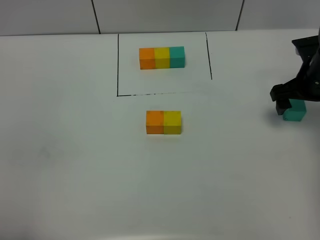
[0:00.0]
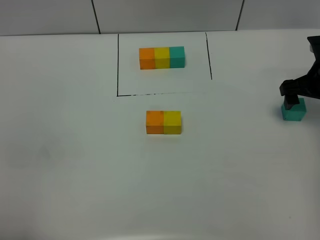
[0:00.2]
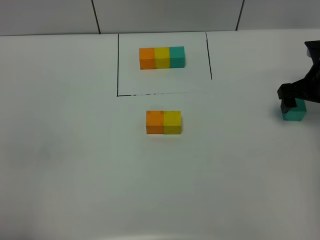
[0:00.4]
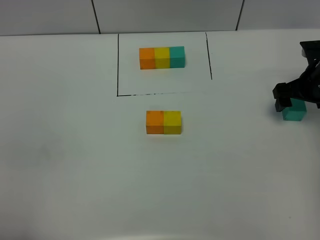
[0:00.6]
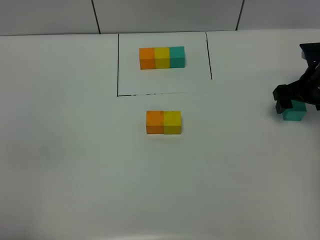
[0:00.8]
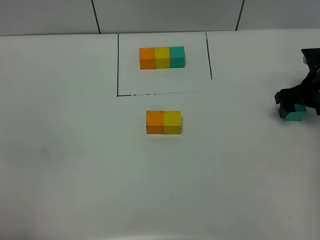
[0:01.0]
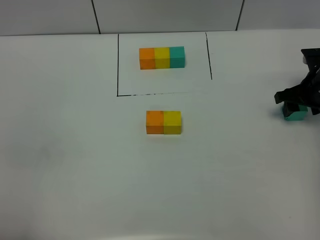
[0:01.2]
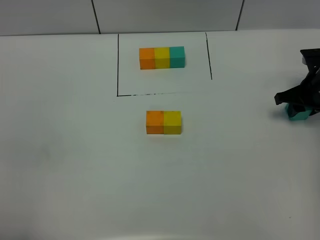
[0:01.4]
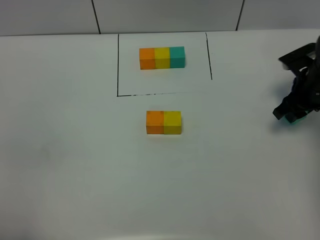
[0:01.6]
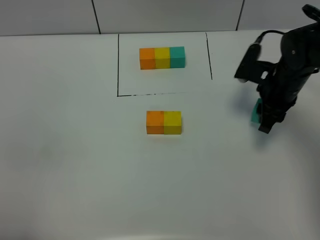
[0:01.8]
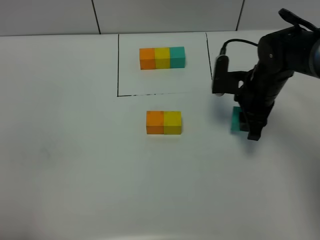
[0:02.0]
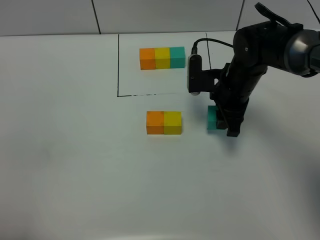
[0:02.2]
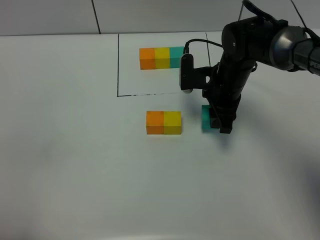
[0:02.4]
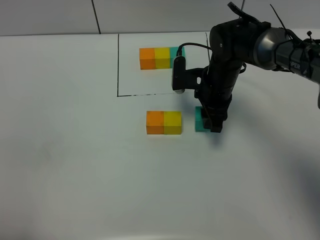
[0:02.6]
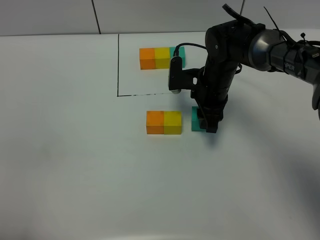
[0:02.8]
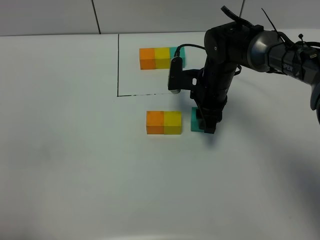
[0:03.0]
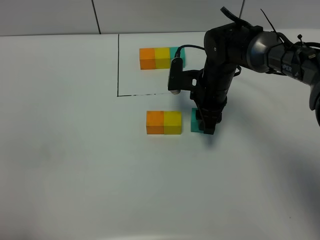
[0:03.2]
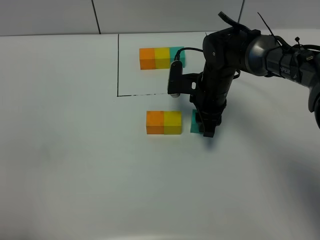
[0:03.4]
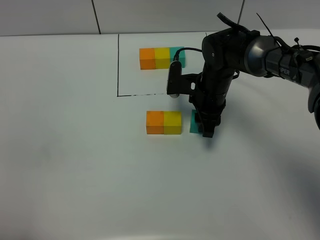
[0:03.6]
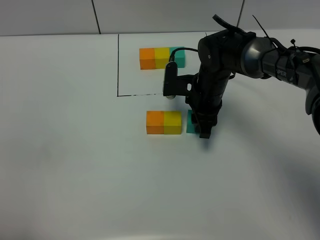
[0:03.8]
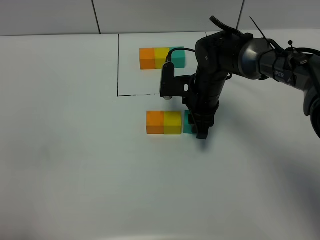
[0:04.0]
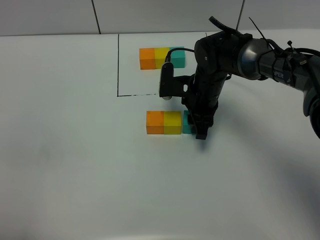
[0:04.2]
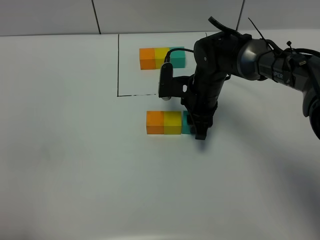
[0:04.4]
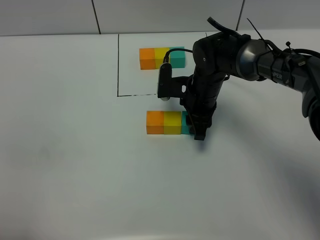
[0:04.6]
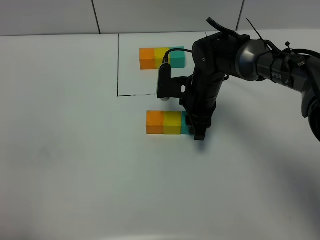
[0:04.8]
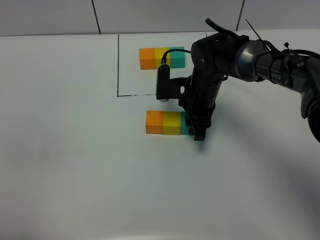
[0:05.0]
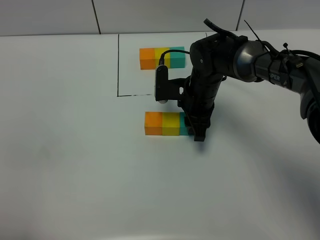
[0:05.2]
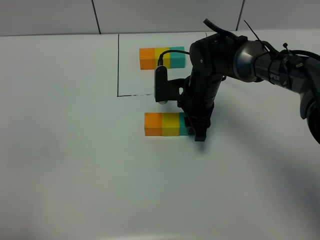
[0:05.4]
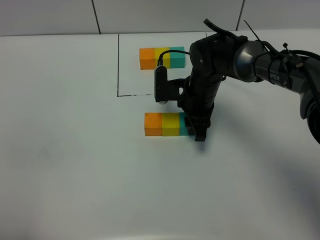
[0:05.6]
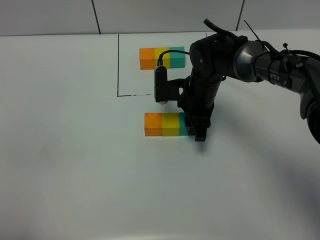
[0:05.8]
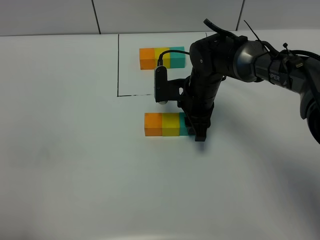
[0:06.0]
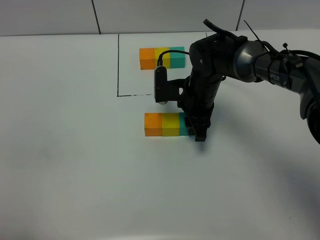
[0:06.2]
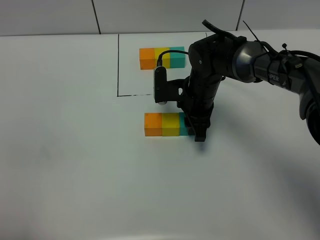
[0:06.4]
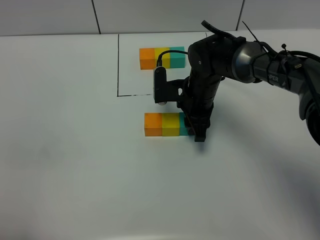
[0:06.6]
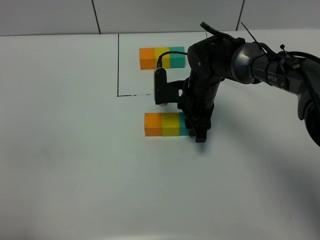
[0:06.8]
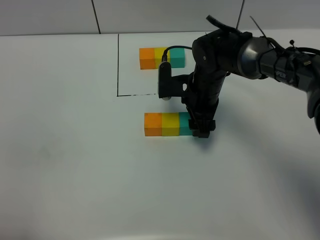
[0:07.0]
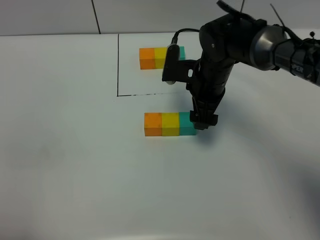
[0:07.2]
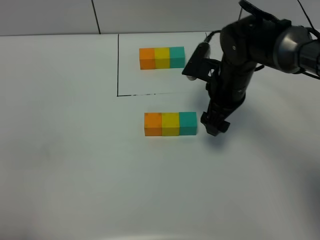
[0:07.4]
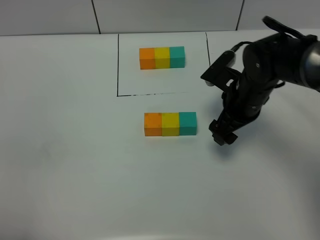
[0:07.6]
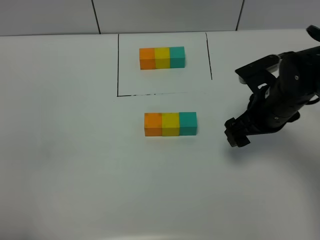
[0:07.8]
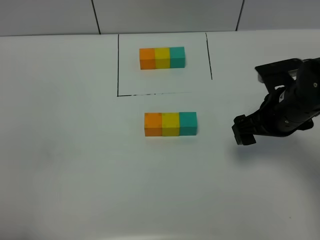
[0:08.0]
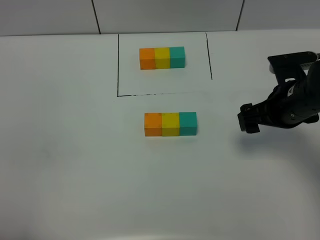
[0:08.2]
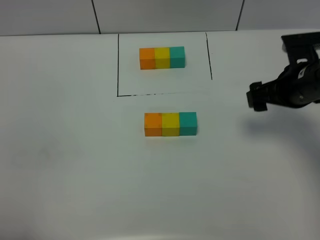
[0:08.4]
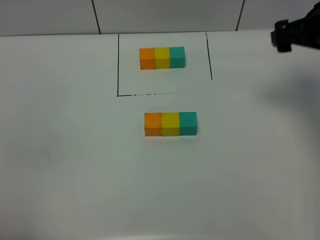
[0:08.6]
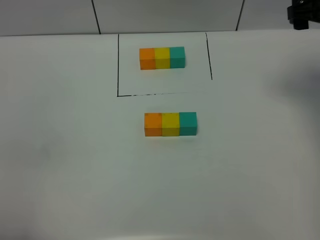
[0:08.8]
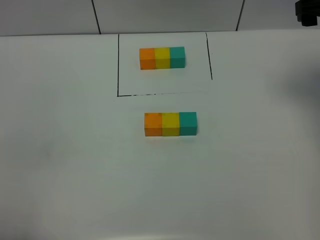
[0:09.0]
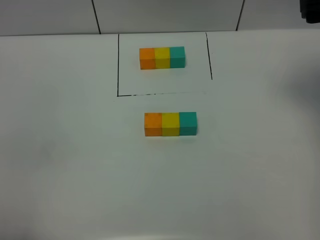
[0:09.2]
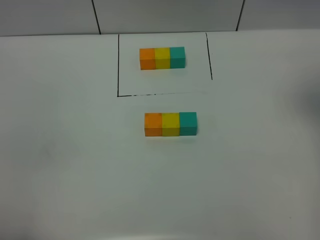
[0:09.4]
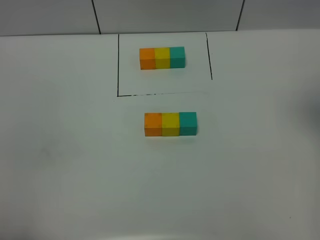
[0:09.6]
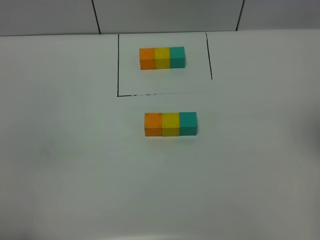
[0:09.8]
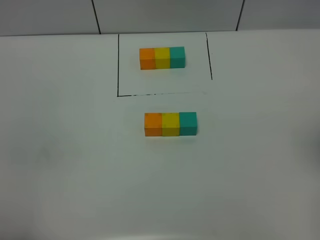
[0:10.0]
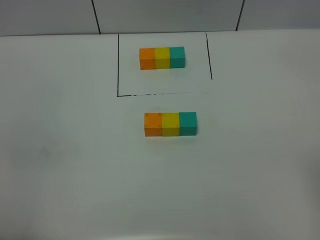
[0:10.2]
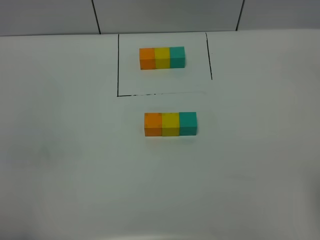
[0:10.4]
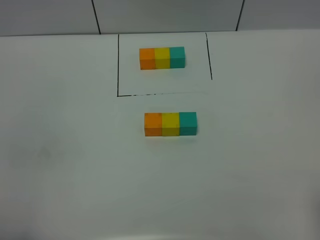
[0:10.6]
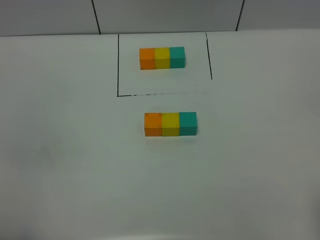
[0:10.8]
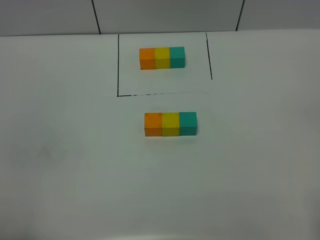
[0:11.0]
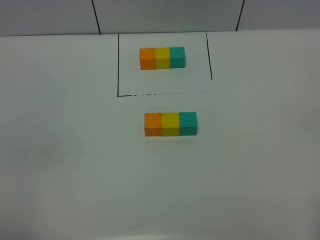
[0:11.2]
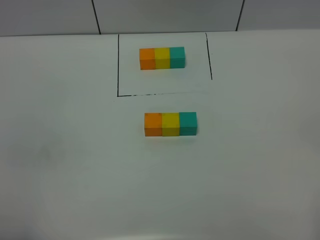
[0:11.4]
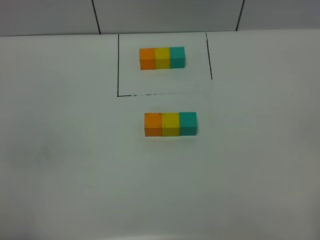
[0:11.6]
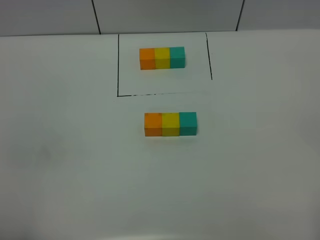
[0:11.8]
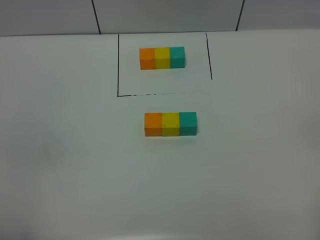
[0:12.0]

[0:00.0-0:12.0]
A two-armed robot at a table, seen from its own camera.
Task of the whole recording: According to the building block template in front, assemble the scattered blocks together.
Step, 0:00.0 to 0:06.8: Put the green build block on the right of the yellow build block.
0:00.0 to 0:01.6: The right gripper closes up.
0:01.6 to 0:03.0: The right gripper shifts approximately 20 cm to the left.
0:03.0 to 0:06.0: The grippers stay close to where they were, moving slightly.
0:06.0 to 0:07.6: The right gripper travels to the right by some 10 cm, and opens its fingers.
0:07.6 to 0:09.0: The right gripper goes some 20 cm upward and to the right.
0:09.0 to 0:10.4: The right gripper heads backward, covering approximately 25 cm.

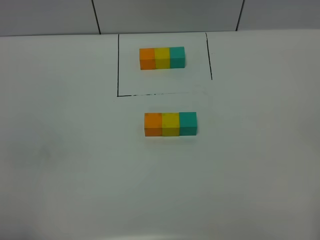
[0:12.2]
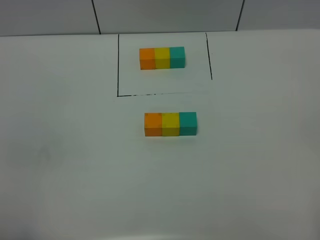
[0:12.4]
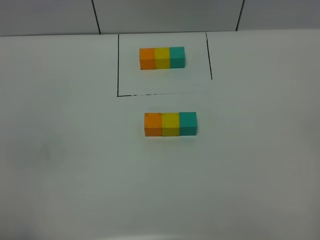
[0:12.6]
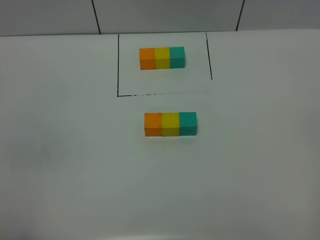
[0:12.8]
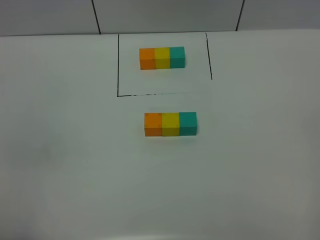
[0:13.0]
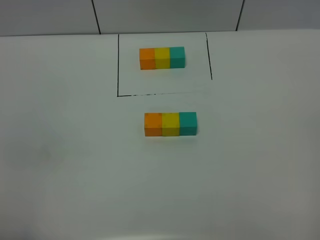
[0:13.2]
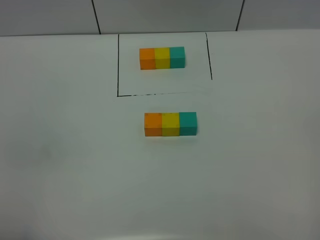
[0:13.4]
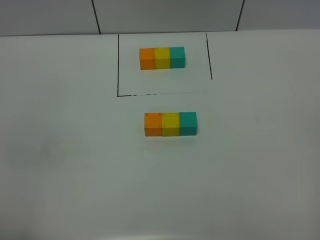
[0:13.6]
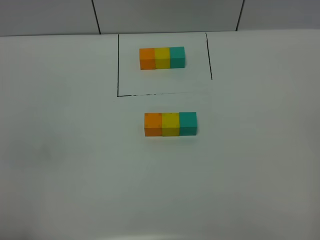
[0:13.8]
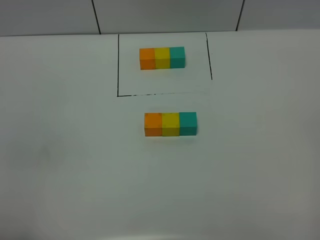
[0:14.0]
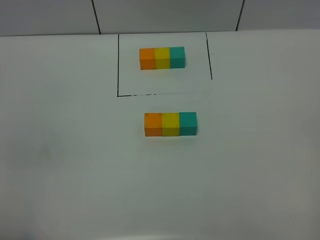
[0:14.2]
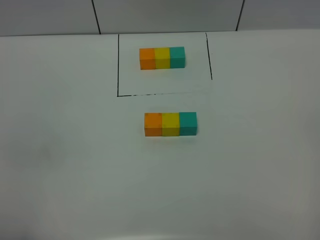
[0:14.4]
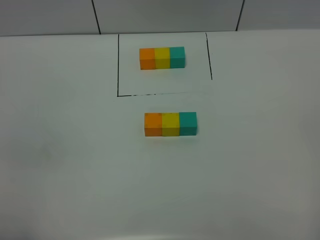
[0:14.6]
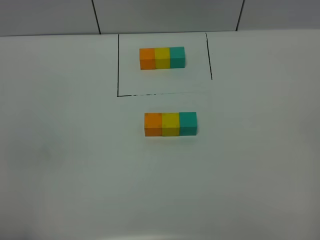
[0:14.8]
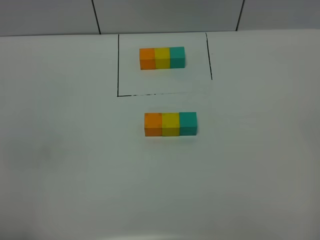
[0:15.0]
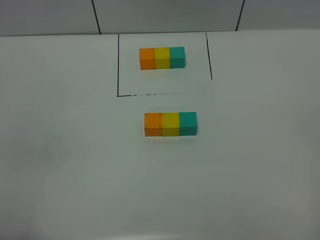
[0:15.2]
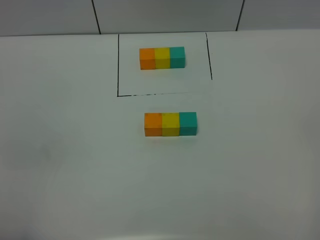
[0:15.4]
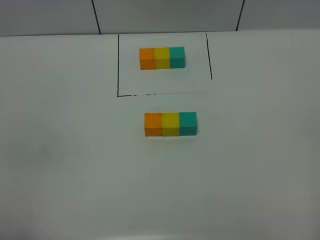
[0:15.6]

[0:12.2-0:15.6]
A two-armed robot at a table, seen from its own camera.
Task of the whole recording: According to the building block template in front, assemble the scattered blocks together.
0:13.8 to 0:15.6: Neither gripper changes place.

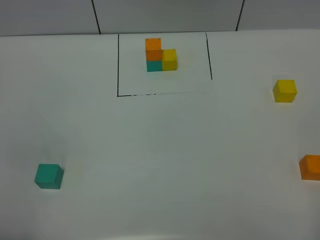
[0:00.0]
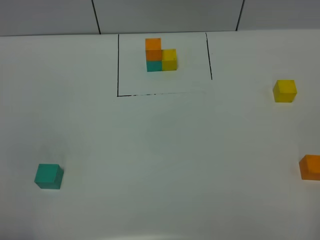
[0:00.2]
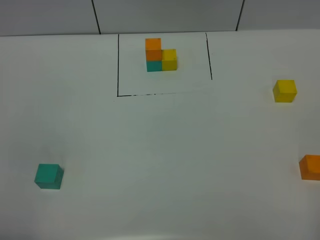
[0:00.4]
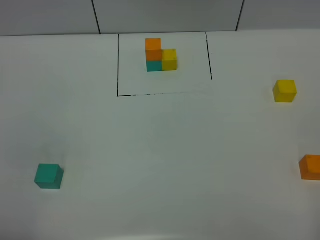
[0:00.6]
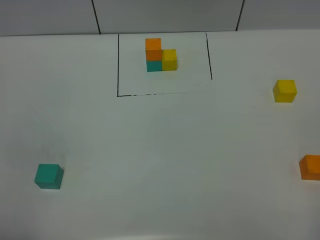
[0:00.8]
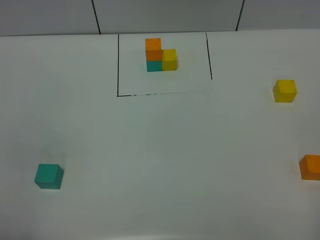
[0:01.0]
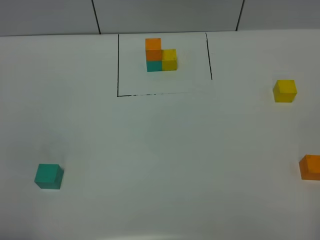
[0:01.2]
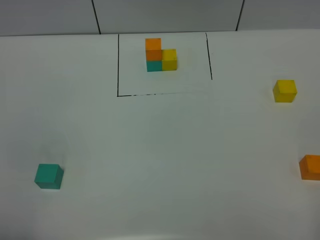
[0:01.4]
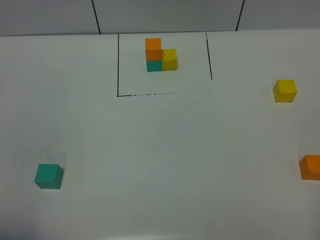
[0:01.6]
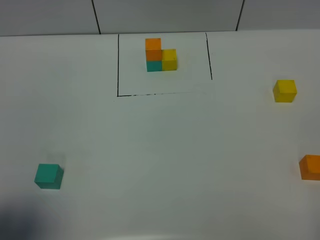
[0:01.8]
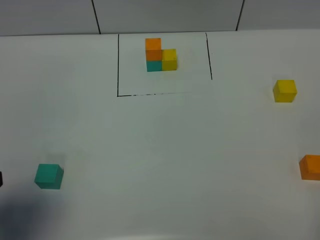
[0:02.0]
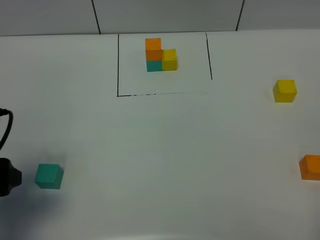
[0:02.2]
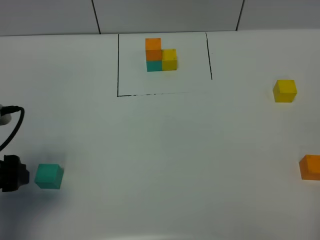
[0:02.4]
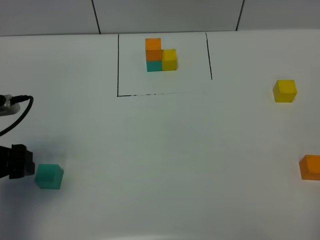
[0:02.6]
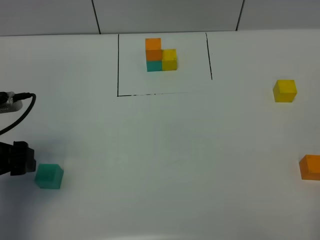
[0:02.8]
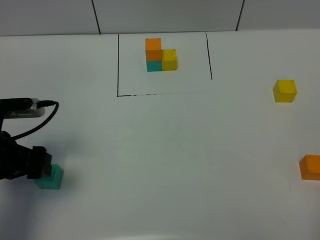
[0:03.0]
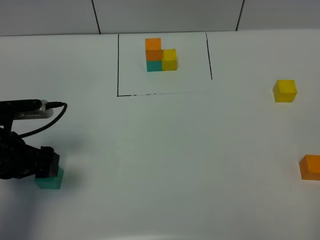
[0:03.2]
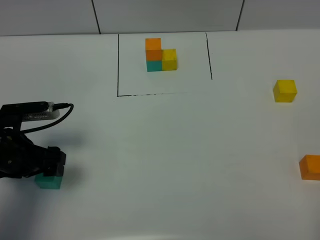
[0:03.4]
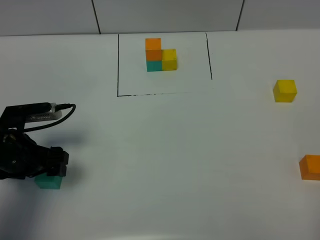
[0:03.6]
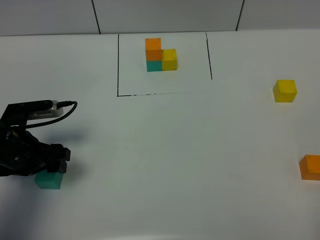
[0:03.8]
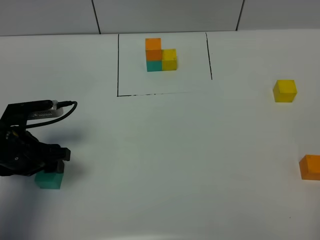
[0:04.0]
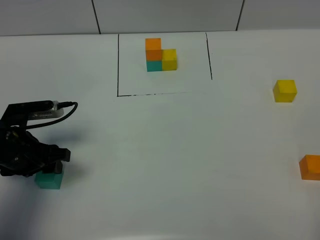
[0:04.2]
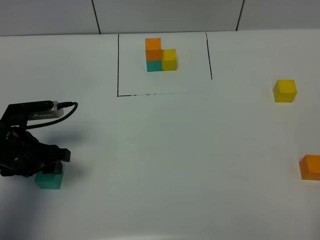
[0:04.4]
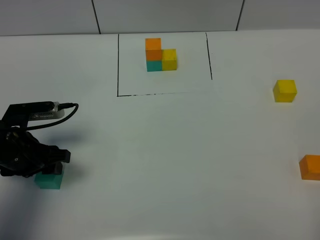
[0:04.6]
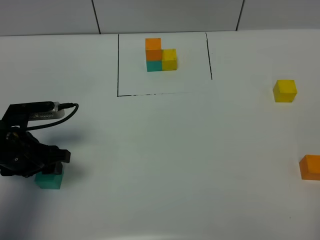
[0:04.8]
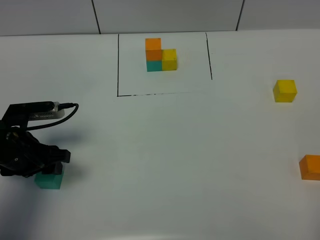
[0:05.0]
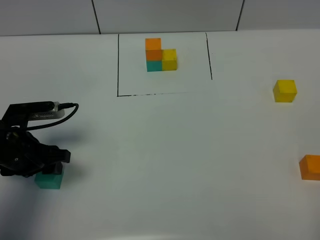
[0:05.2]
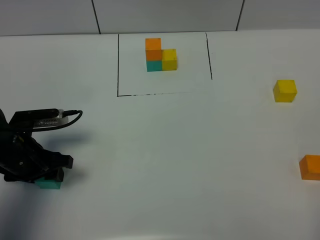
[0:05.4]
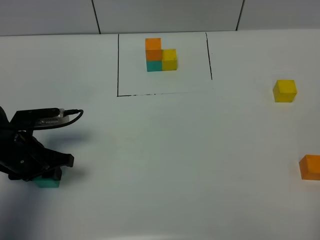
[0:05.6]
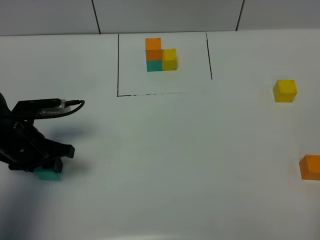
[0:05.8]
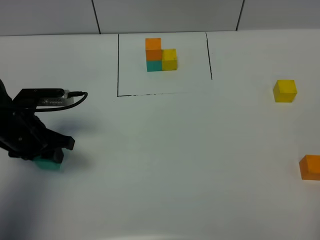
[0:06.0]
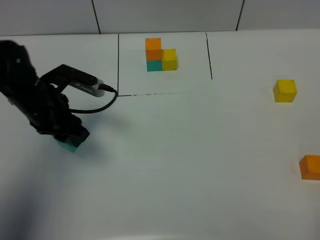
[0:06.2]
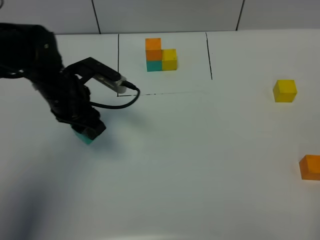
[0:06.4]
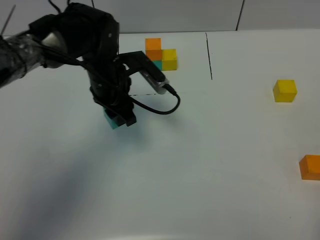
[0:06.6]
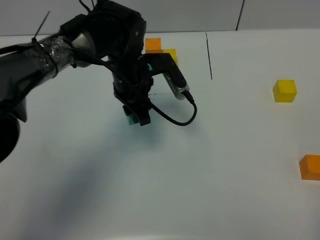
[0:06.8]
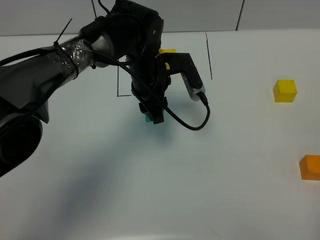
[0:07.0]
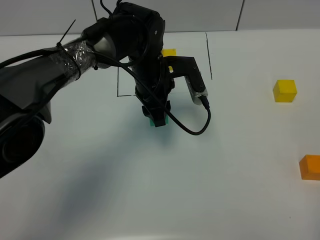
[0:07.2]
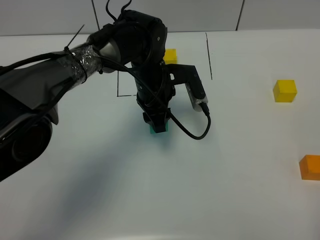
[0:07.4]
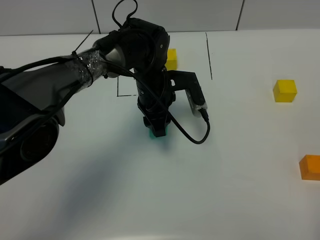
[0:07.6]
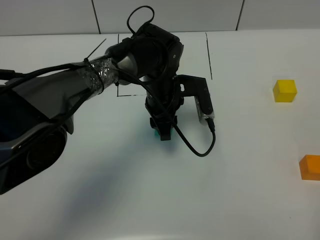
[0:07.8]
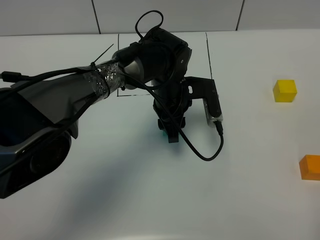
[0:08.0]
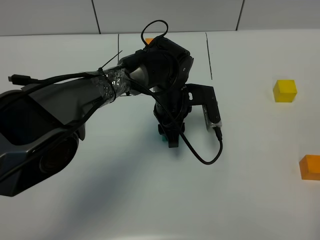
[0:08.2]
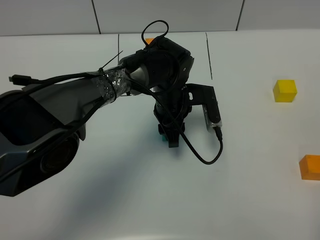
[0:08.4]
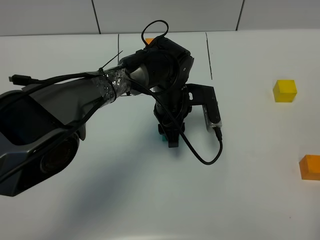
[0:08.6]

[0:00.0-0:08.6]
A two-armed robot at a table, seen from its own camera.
Task of the whole recording: According to the building block template in front, assemble the scattered blocks together.
0:00.0 to 0:01.4: Both grippers stay put.
0:01.4 to 0:02.8: The left gripper is displaced forward by approximately 20 cm.
0:02.8 to 0:04.4: The left gripper heads downward, covering some 5 cm, and closes up.
0:04.4 to 0:05.8: The grippers stay close to where they were, moving slightly.
0:05.8 to 0:07.2: The left gripper moves to the right and forward, about 25 cm.
0:07.2 to 0:08.6: The left gripper shifts some 5 cm downward.
